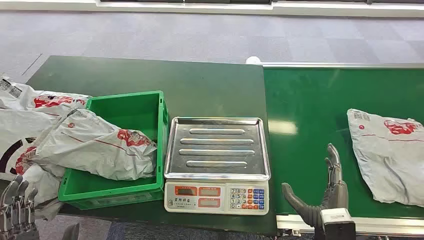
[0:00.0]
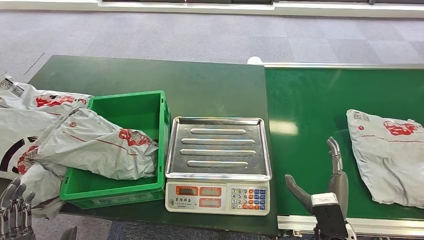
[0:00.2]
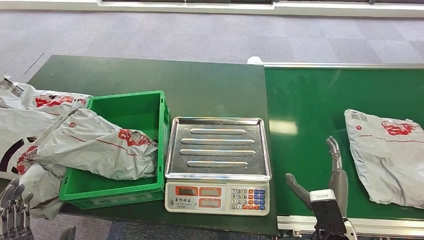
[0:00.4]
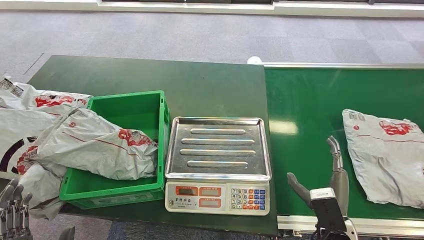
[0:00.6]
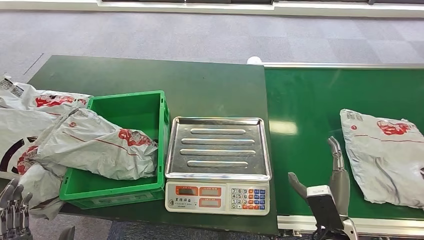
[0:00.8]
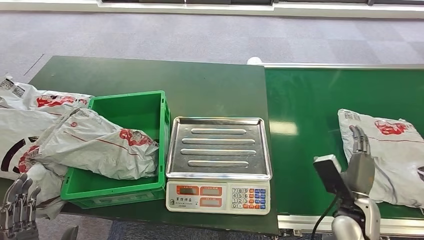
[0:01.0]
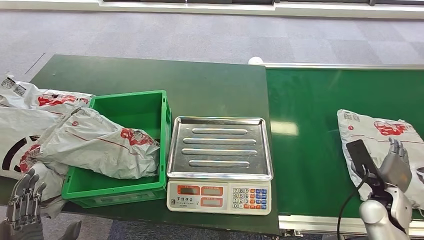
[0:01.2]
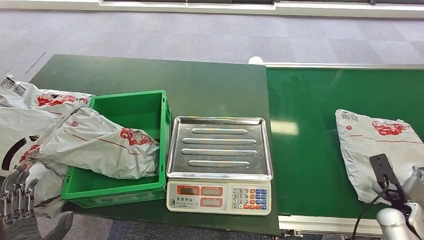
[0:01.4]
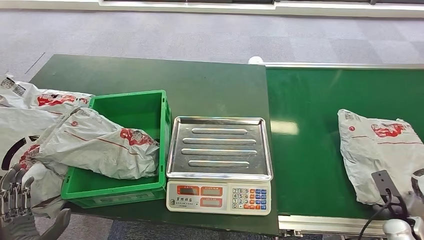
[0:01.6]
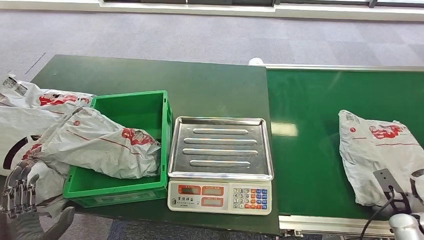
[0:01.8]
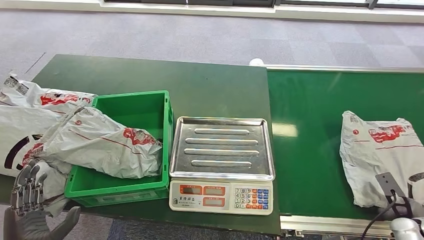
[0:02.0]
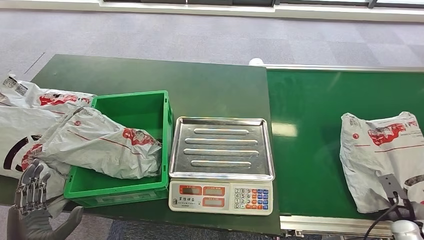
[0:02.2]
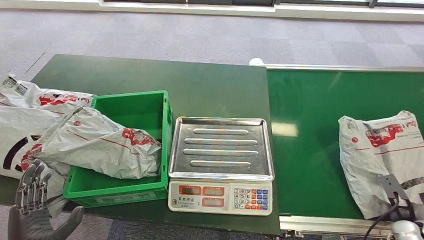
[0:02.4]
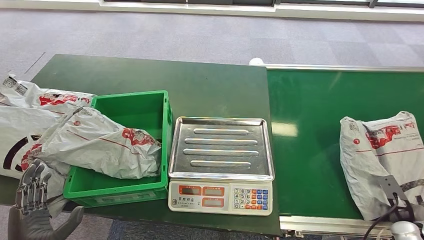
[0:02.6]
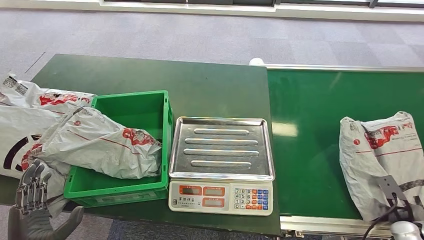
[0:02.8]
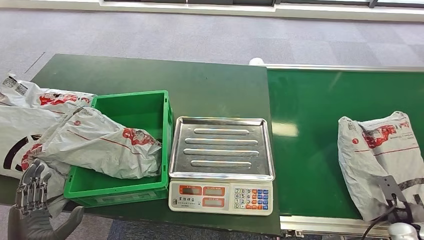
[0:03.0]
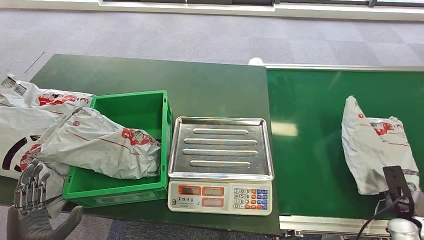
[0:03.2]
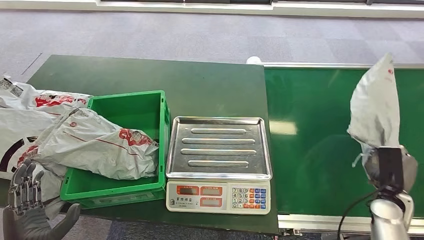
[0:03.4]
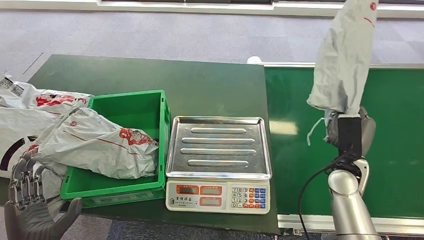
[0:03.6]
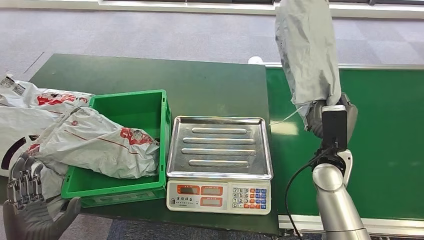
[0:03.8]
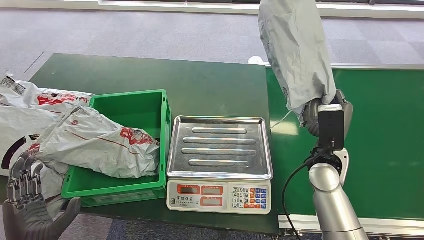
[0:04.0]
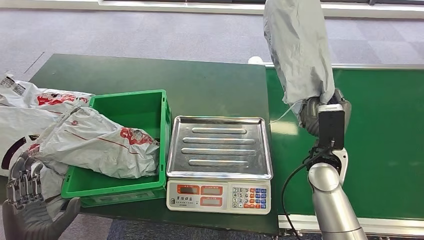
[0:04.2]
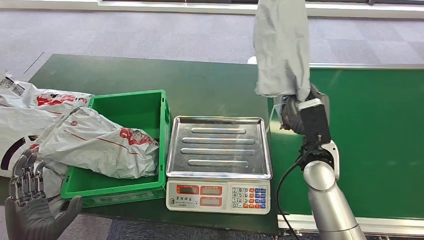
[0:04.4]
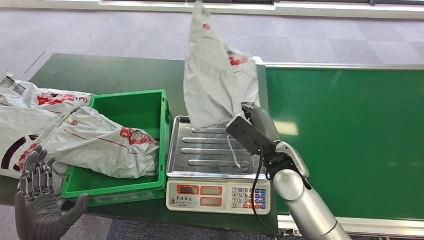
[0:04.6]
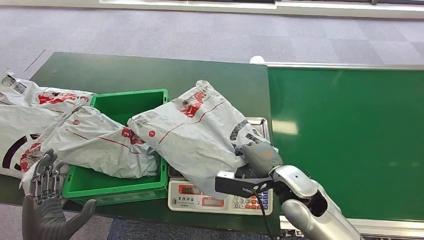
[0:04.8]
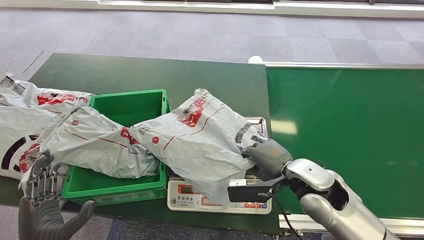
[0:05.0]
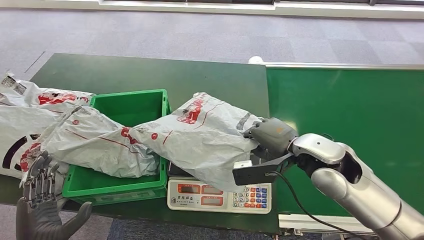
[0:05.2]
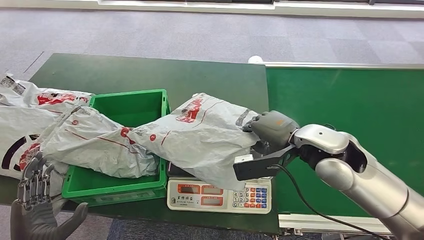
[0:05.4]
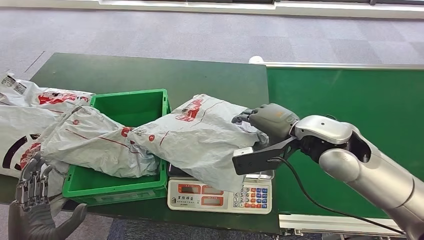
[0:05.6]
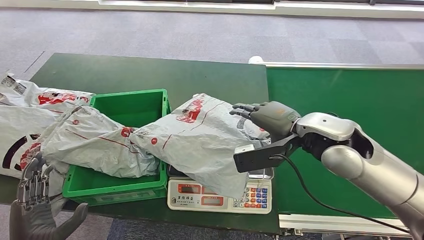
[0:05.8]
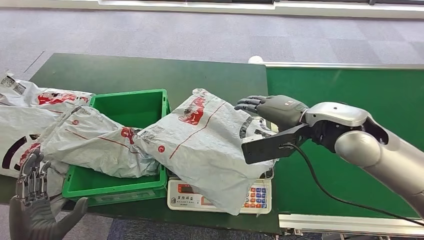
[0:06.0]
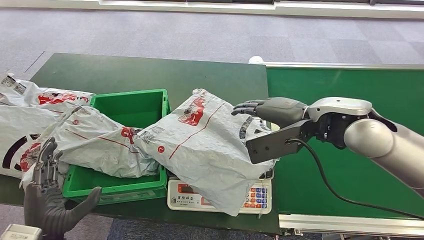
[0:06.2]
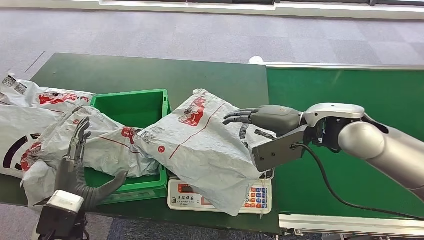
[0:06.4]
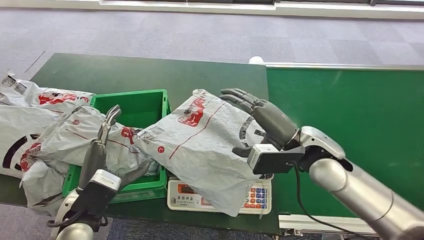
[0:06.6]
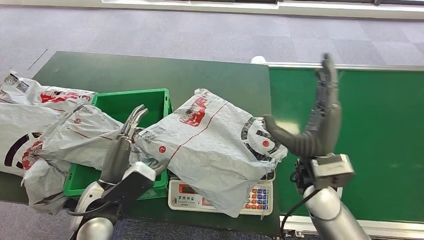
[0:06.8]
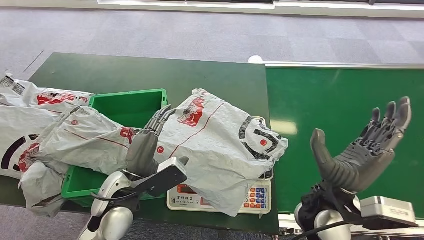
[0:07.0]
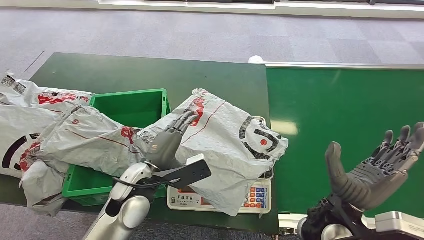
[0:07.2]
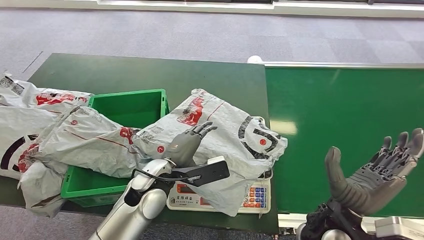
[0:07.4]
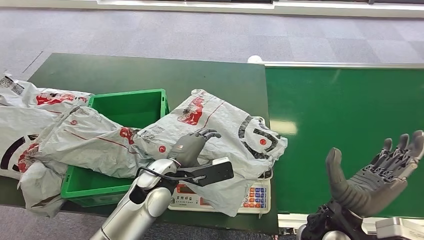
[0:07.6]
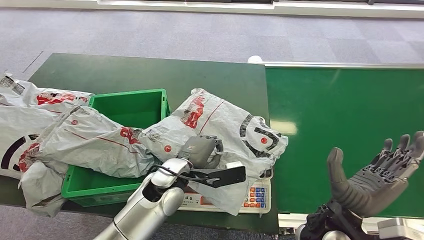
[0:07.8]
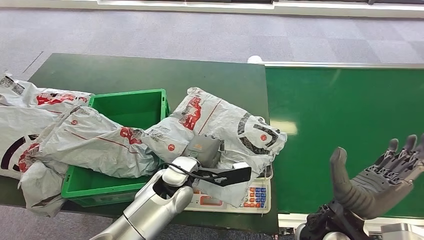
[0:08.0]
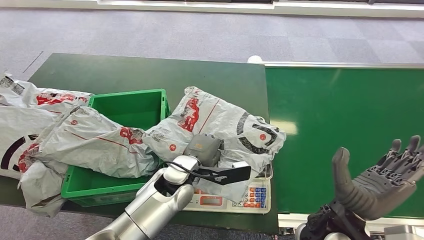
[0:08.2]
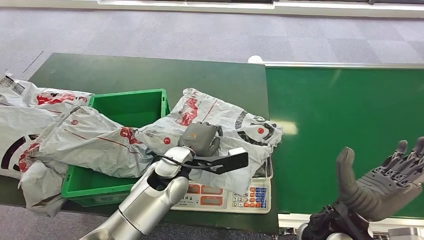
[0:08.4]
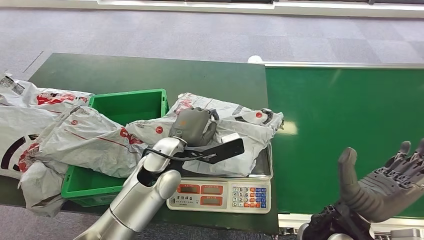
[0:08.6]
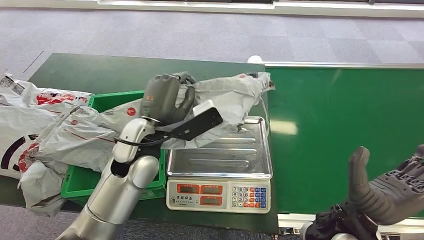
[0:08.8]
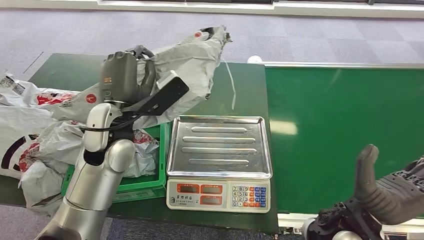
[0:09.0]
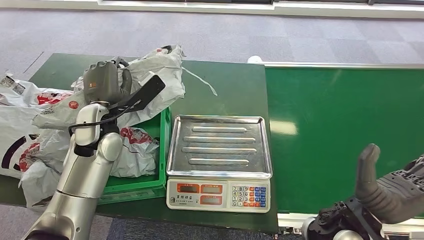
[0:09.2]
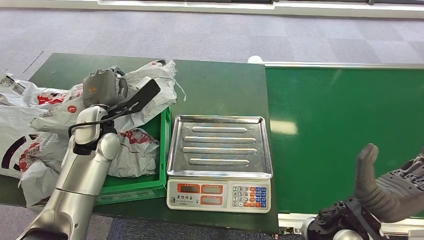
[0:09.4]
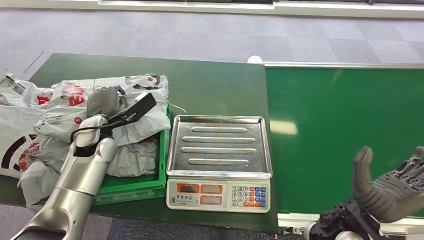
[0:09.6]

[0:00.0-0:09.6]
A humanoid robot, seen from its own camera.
Step, 0:00.0 to 0:03.6: Pick up the package from the conveyor belt.
Step, 0:04.0 to 0:06.4: Place the package onto the inbound machine.
Step, 0:06.6 to 0:09.2: Pick up the package from the inbound machine.
Step, 0:09.4 to 0:09.6: Place the package into the parcel locker.
0:01.6 to 0:03.2: There are only small adjustments of the hands.
